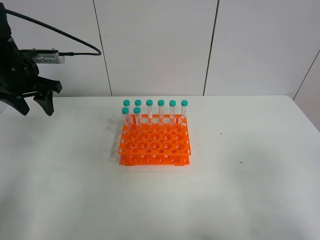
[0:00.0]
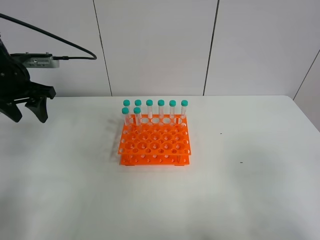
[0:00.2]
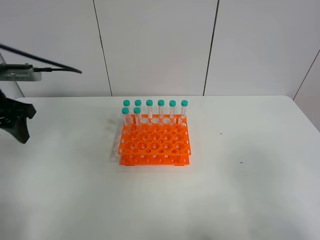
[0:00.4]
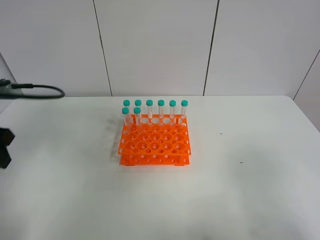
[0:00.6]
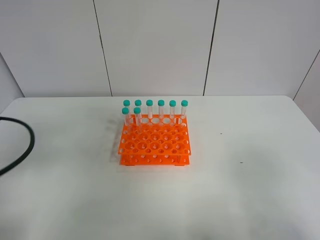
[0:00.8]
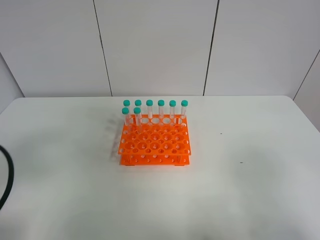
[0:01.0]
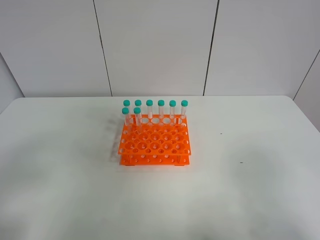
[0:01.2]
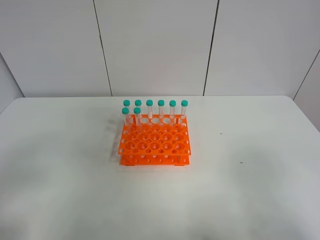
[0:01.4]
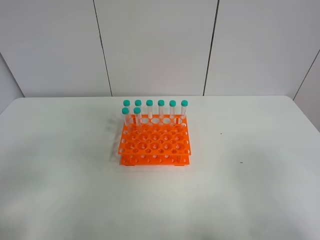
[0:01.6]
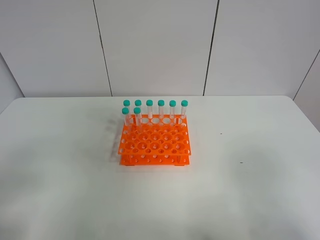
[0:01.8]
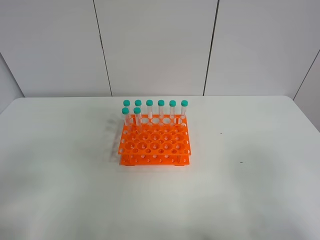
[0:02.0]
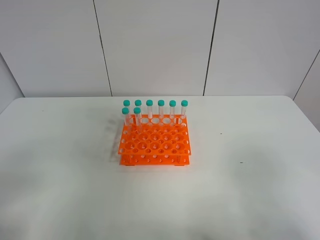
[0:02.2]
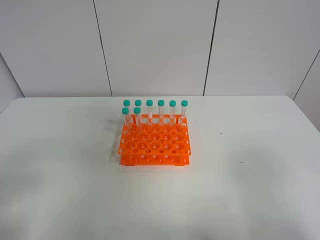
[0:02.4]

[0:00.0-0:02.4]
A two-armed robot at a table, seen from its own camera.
Task of the whole recording: Put the test tube on the table back onto the test tube rack.
0:00.0 to 0:01.2: The left gripper is displaced backward by about 30 cm.

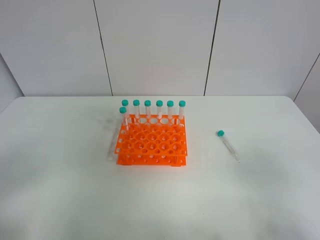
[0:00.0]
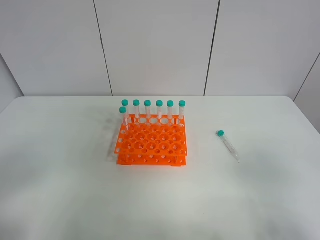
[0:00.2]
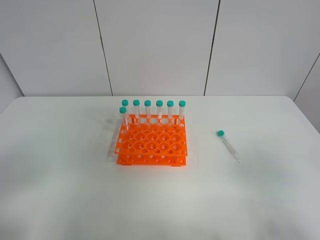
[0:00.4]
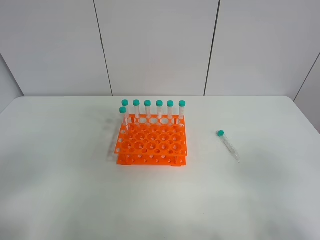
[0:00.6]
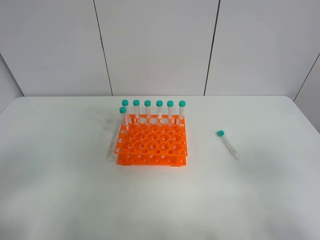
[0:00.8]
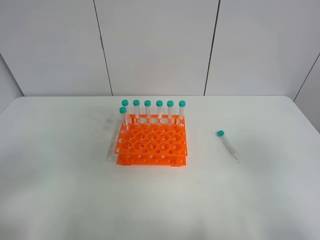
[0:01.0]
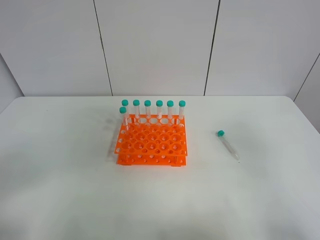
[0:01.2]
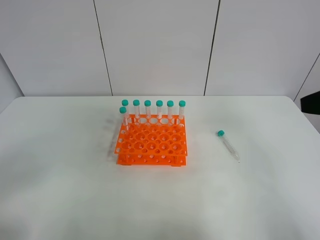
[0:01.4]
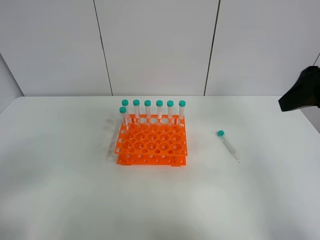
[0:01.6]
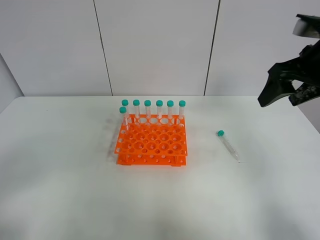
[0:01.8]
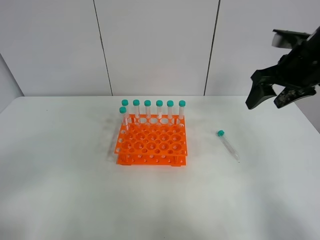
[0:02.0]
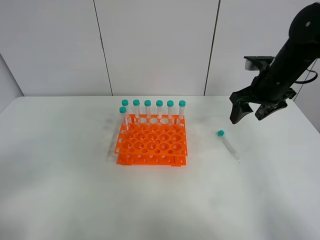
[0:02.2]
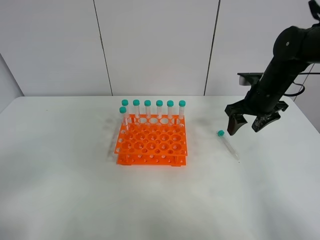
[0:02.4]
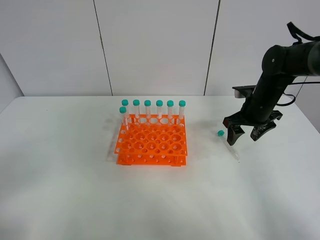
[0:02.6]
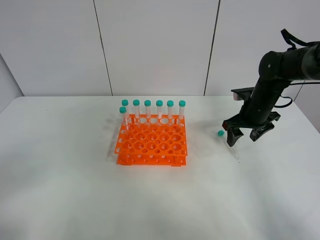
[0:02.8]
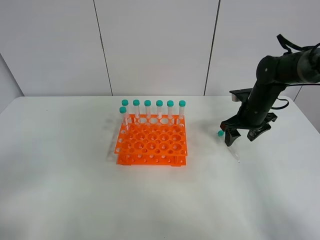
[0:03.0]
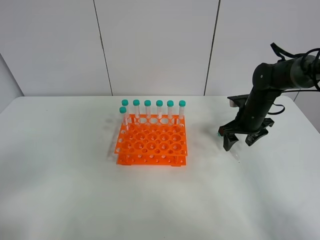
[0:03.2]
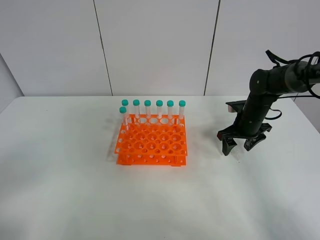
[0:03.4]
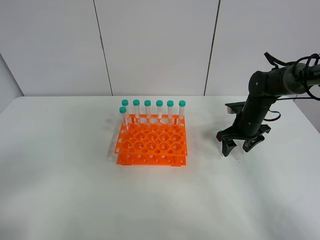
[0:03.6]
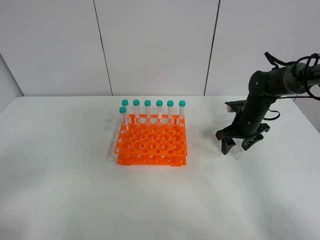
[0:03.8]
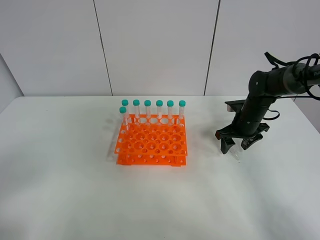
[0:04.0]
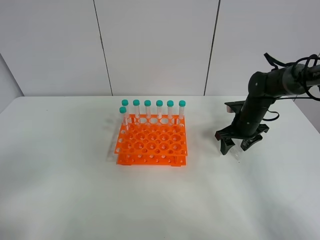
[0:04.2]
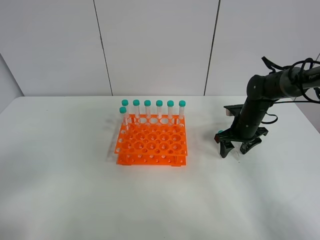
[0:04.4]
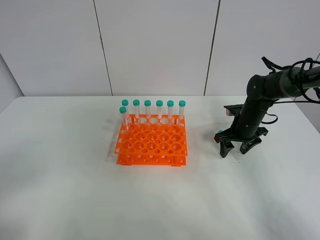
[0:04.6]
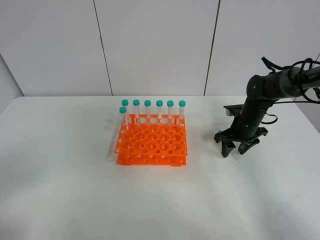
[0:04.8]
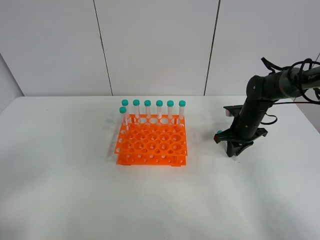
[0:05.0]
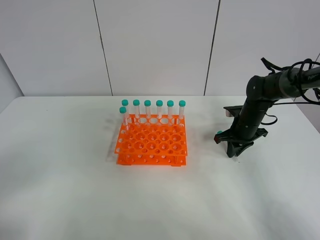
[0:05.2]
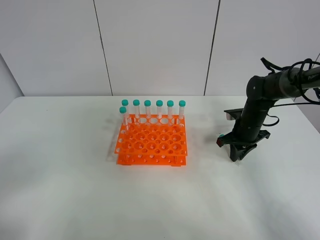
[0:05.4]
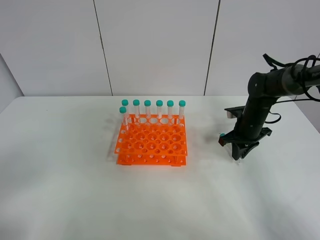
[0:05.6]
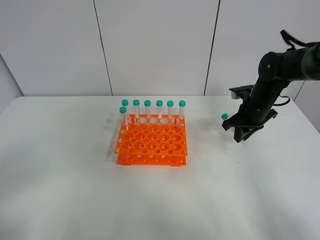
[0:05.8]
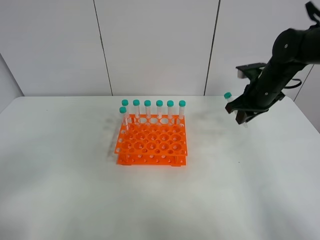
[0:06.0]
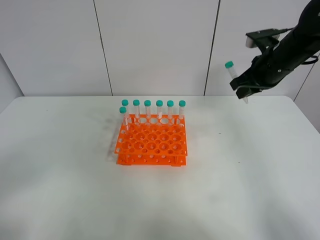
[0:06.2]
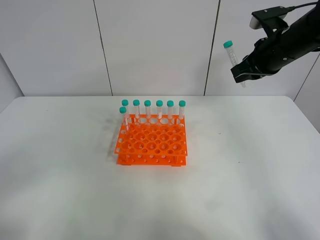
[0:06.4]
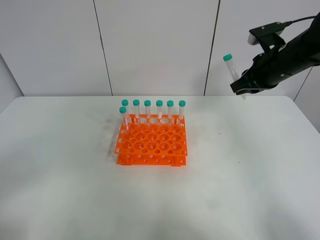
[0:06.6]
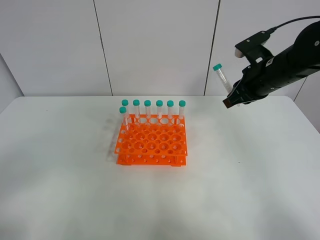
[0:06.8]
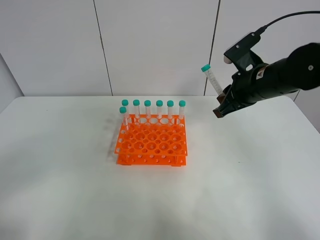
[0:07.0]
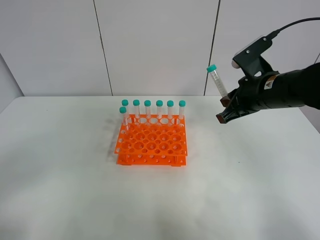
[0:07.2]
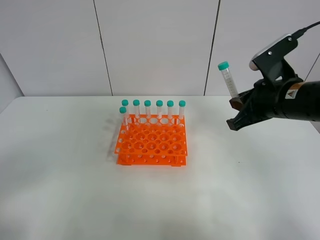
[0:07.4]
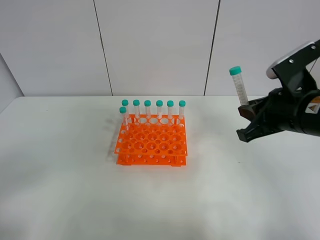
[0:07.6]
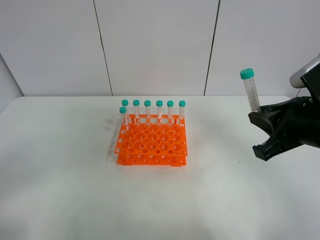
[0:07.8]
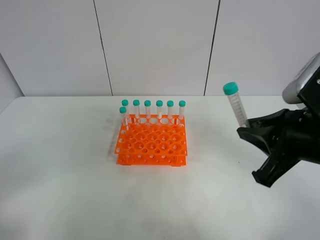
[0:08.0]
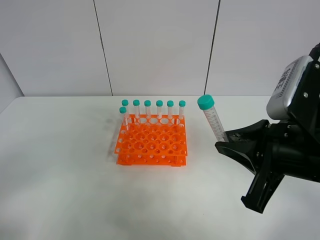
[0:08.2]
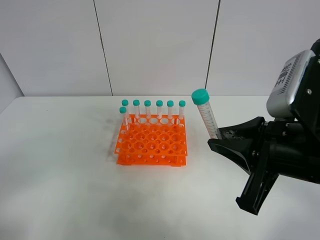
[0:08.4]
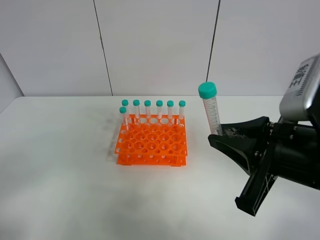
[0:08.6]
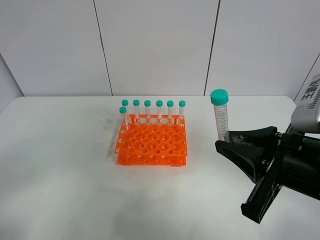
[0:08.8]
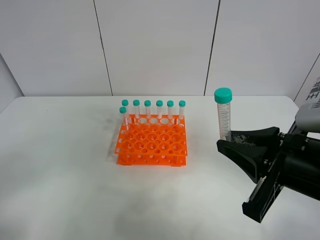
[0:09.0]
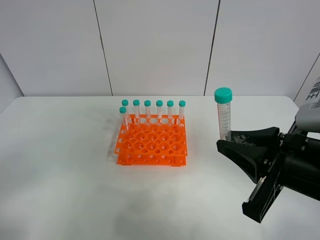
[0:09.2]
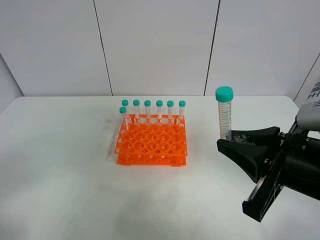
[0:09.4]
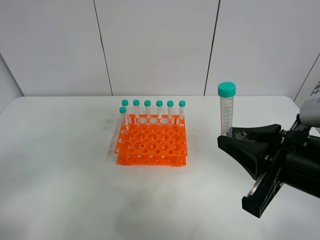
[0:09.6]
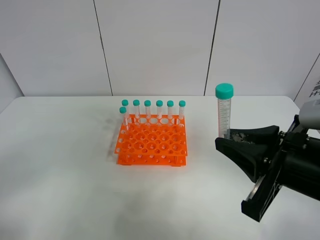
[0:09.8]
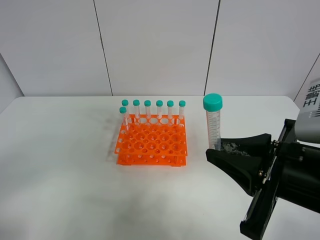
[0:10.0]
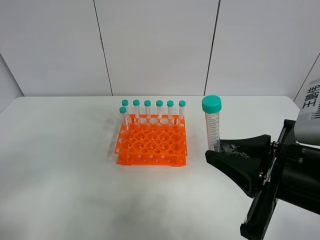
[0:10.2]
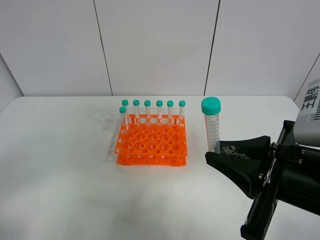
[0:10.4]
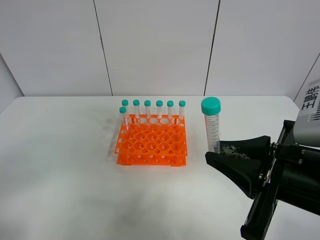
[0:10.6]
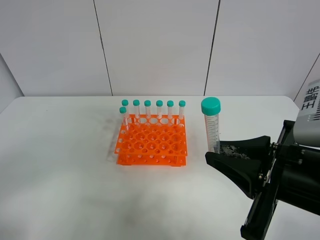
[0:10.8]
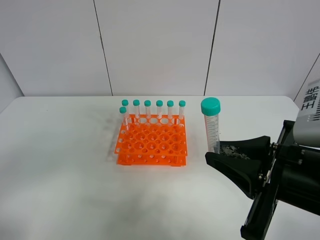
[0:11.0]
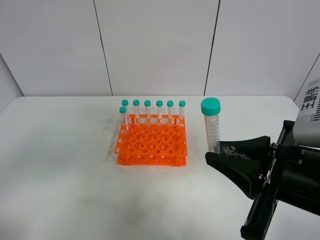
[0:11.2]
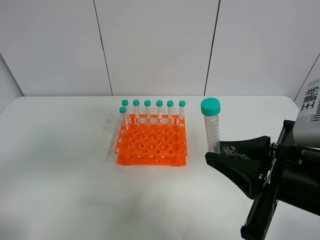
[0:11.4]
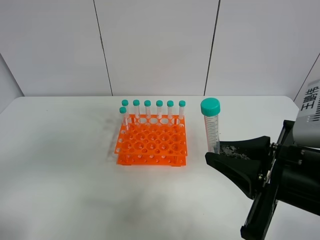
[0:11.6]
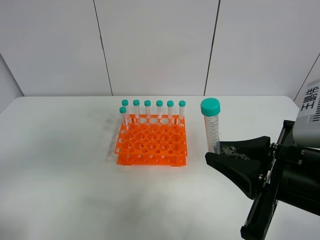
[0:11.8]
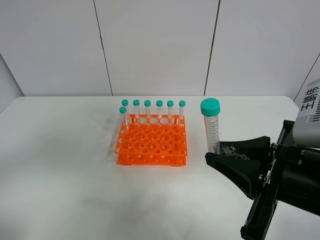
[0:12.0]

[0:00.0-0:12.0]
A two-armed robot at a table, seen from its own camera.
Task of the whole recording: Put the test tube on the table back onto the test tube rack.
Step, 0:00.0 to 0:06.2: Pick up the test tube with the right gripper.
0:00.0 to 0:01.6: The right gripper goes approximately 20 cm forward.
0:01.6 to 0:03.0: The right gripper heads downward and forward, covering approximately 30 cm.
0:03.0 to 0:04.4: The grippers move only a little.
0:04.4 to 0:06.0: The right gripper heads upward, covering about 15 cm, and closes its fingers.
0:06.0 to 0:07.6: The right gripper is displaced backward by some 15 cm.
0:07.6 to 0:09.0: The right gripper heads backward, covering roughly 10 cm.
0:09.0 to 0:10.4: There are only small adjustments of the grippers.

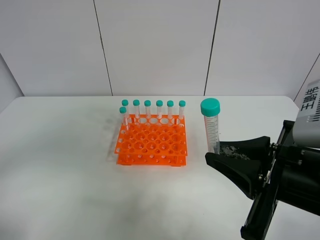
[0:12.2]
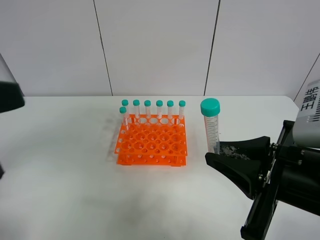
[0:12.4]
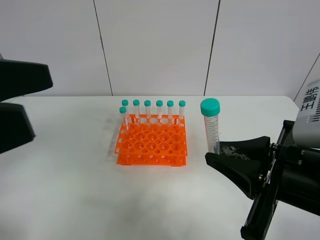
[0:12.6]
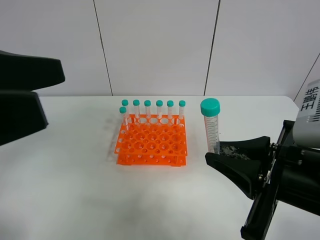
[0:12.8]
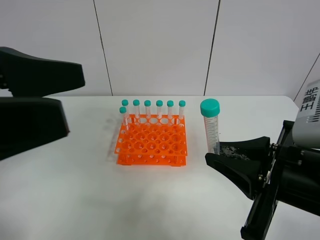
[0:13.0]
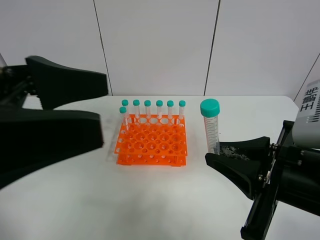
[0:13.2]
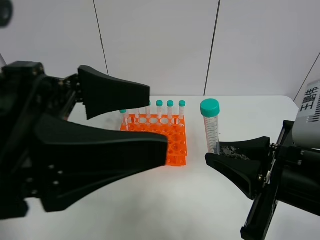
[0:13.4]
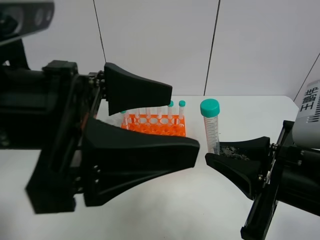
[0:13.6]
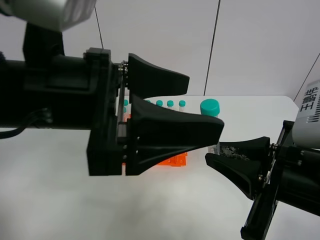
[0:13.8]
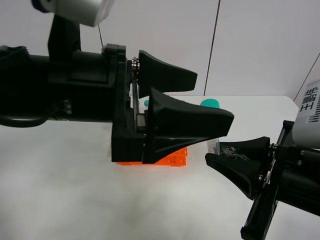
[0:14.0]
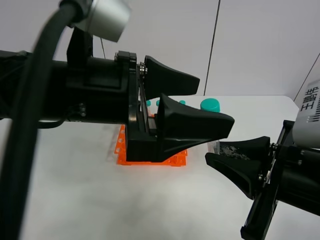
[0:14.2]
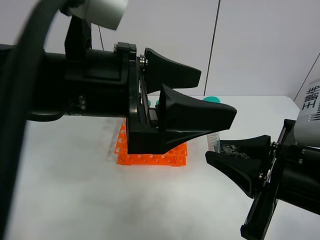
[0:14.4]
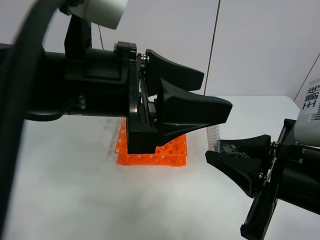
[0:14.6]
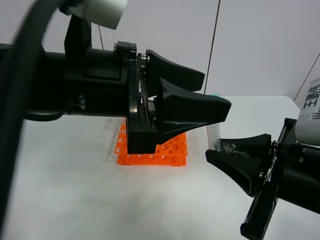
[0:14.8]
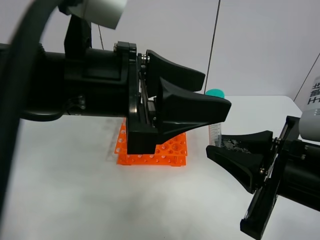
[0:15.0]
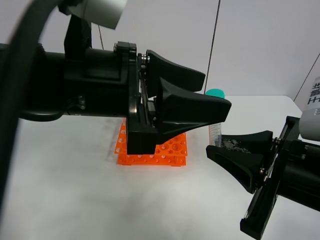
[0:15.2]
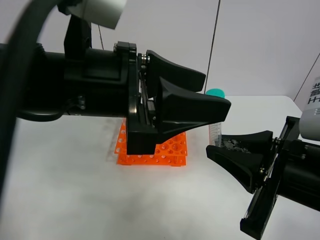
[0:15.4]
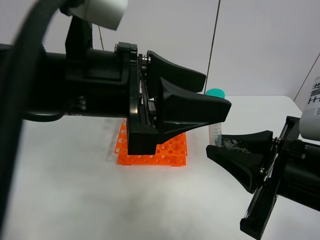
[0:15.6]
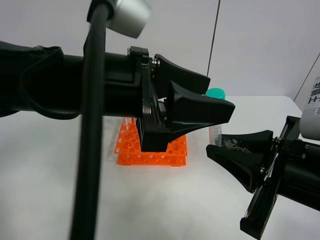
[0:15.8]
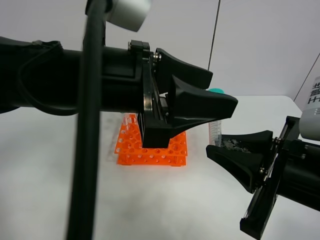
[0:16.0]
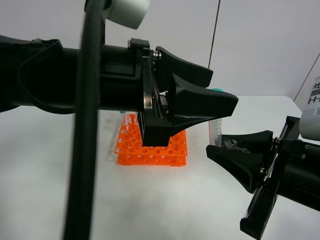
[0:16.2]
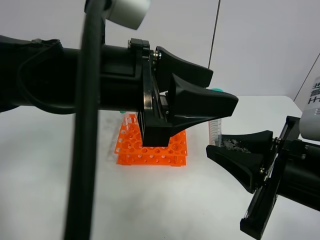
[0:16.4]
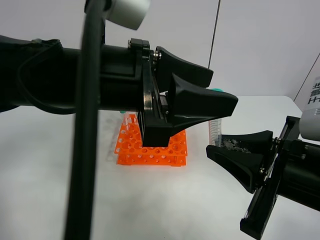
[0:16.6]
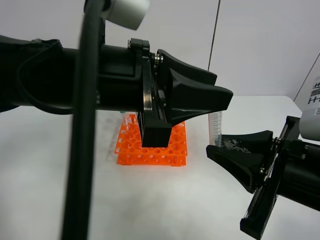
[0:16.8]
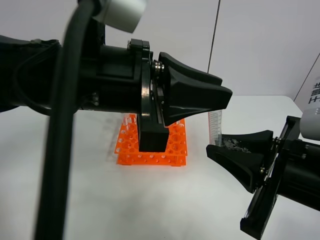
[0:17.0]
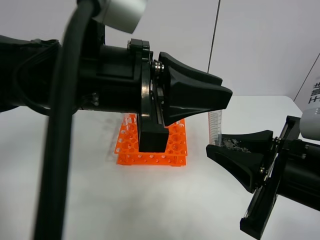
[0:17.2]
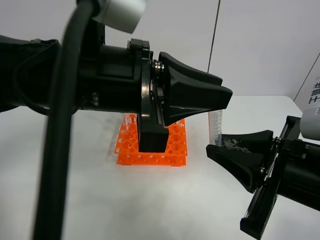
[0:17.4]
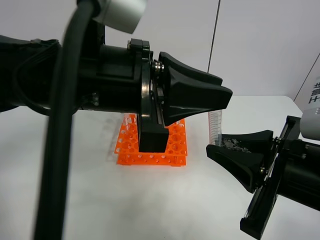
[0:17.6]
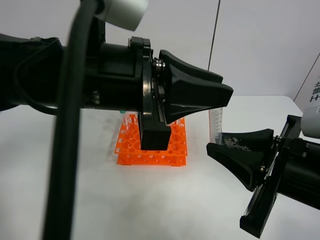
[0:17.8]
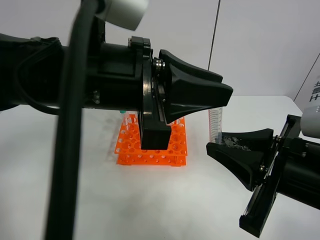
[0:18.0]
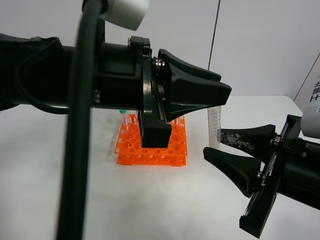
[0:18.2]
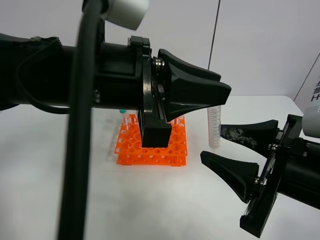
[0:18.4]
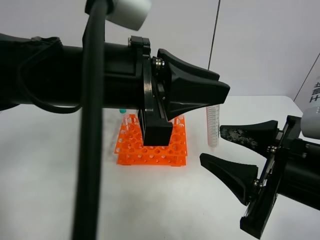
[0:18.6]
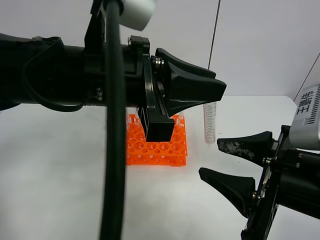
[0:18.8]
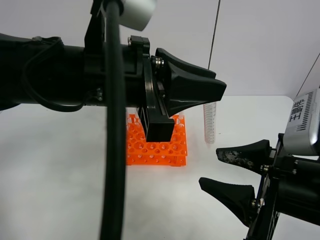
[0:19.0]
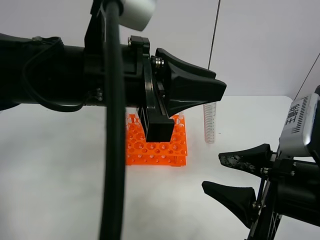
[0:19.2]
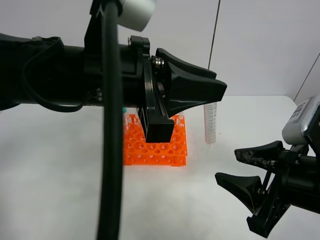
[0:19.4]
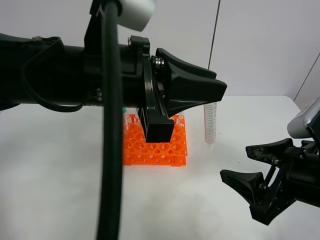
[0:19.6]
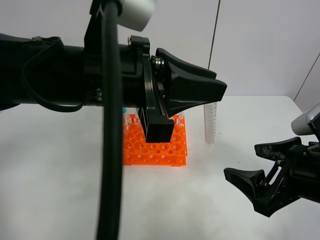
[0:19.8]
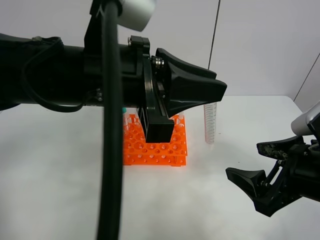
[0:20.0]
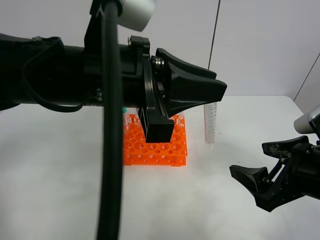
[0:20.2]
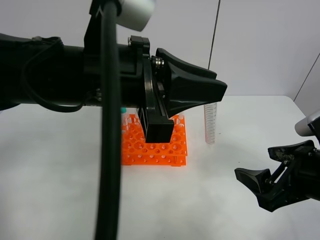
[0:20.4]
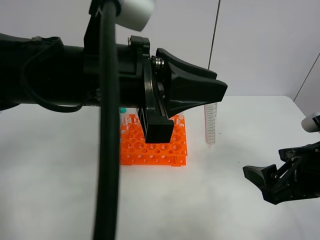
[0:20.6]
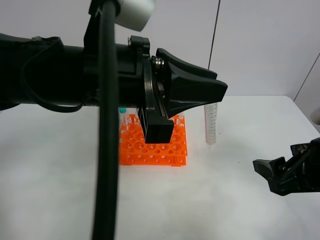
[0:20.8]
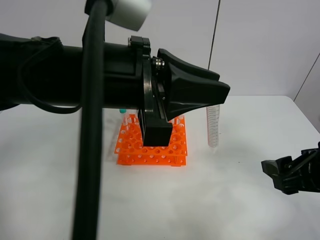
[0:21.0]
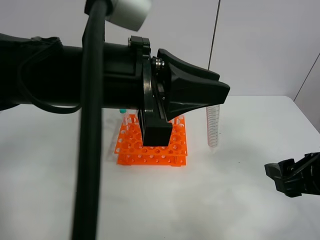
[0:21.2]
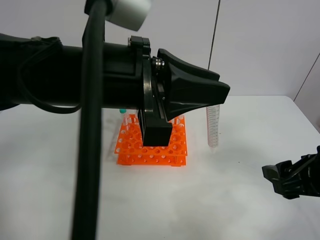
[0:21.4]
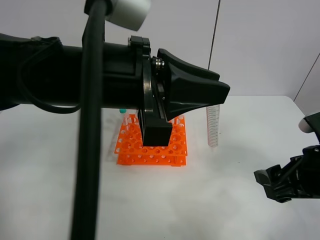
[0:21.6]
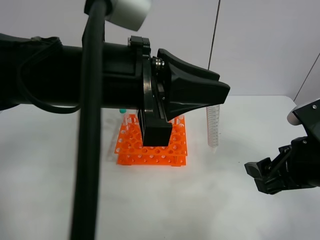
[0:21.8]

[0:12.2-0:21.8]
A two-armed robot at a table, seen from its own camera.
Task of the whole recording: Put the test tube on the table back onto the test tube rack.
Step, 0:12.2 to 0:19.2: Move the test tube from the right gripper to the left gripper.
0:12.2 to 0:13.8: The left gripper moves to the right and forward, about 20 cm.
0:13.8 to 0:15.4: The left gripper closes.
0:15.4 to 0:17.0: The left gripper closes its fingers.
0:17.0 to 0:18.6: The right gripper opens up.
0:18.6 to 0:20.2: The right gripper changes place by approximately 5 cm, and opens up.
